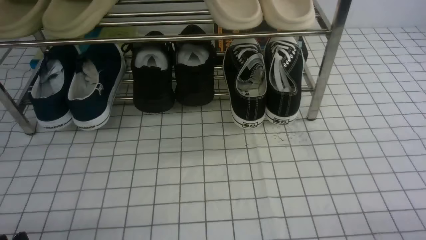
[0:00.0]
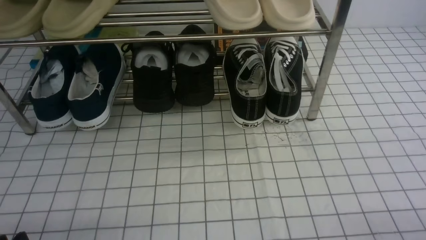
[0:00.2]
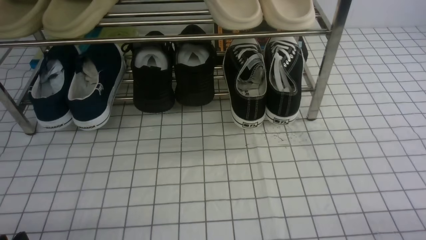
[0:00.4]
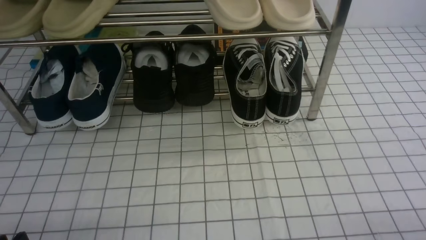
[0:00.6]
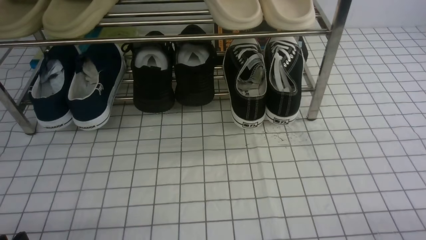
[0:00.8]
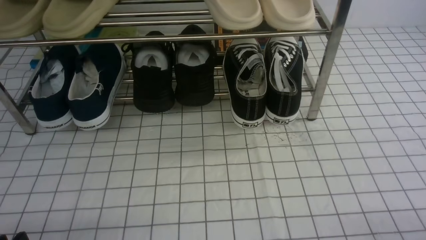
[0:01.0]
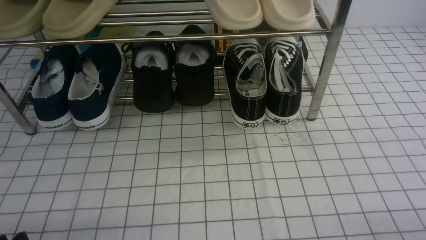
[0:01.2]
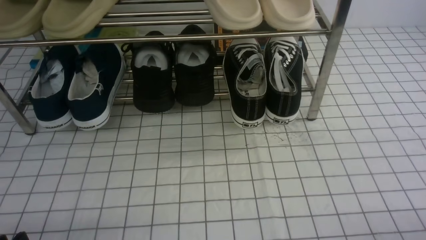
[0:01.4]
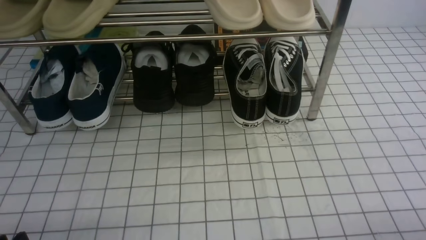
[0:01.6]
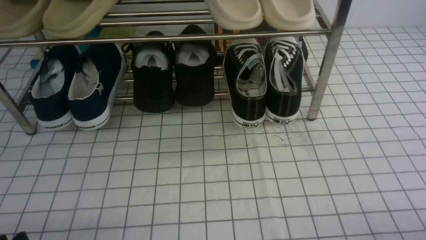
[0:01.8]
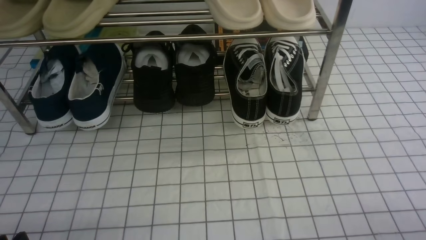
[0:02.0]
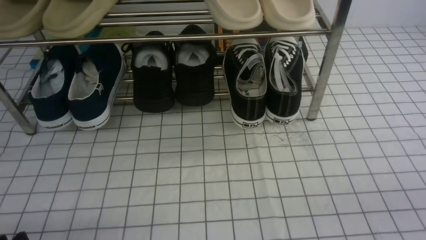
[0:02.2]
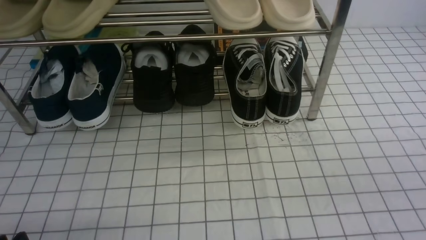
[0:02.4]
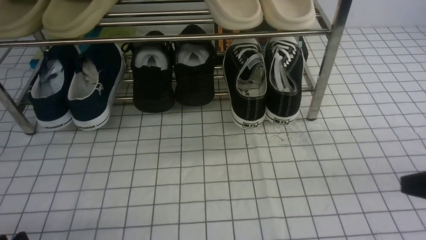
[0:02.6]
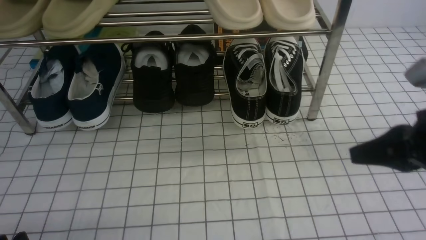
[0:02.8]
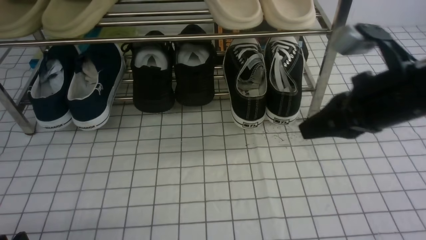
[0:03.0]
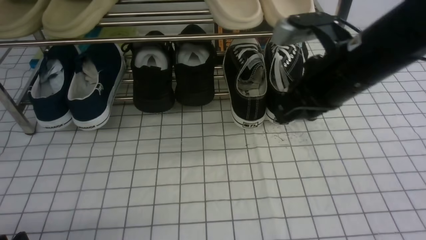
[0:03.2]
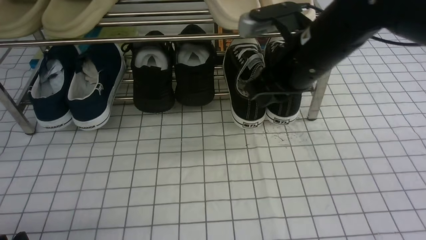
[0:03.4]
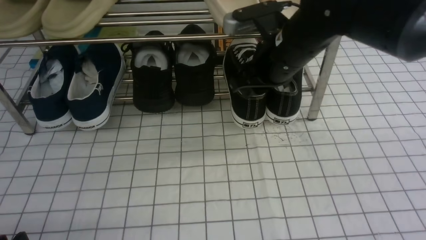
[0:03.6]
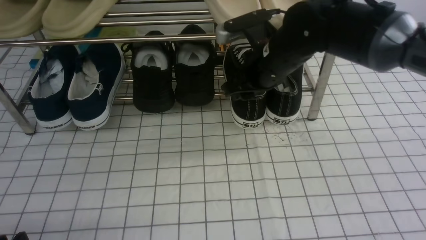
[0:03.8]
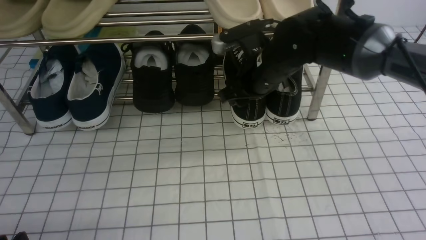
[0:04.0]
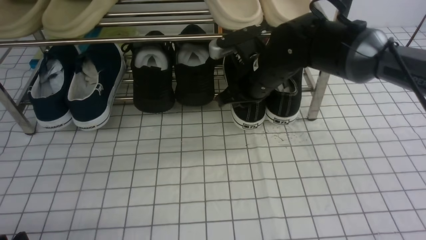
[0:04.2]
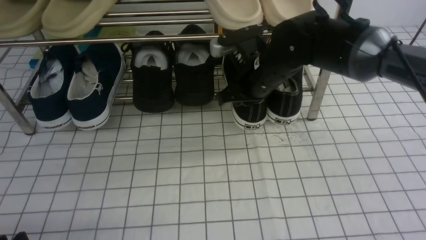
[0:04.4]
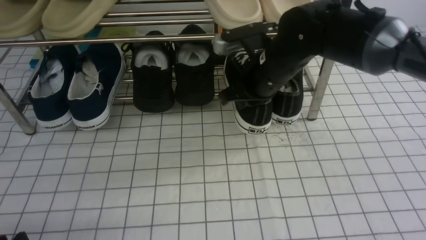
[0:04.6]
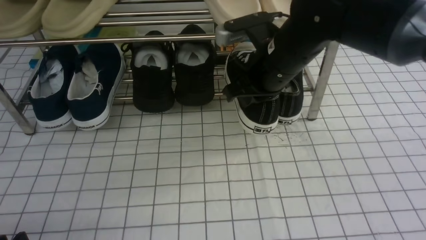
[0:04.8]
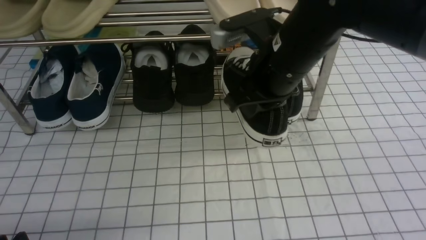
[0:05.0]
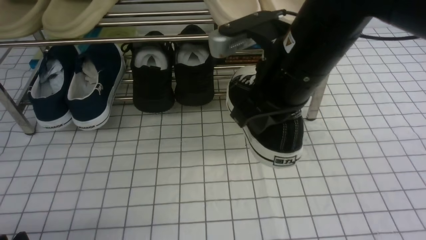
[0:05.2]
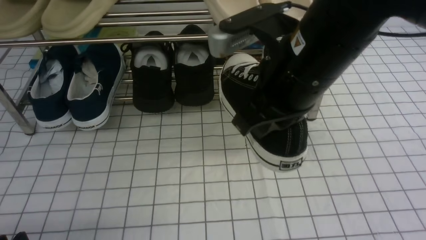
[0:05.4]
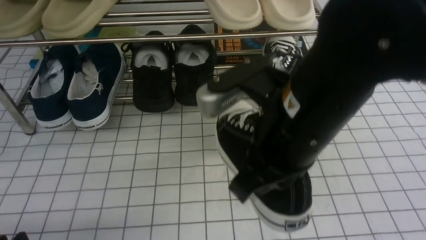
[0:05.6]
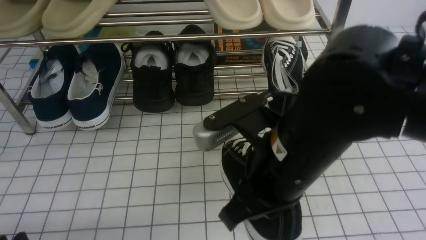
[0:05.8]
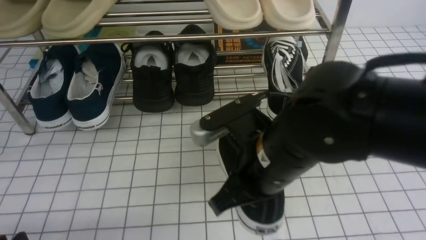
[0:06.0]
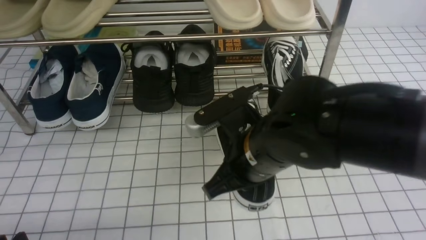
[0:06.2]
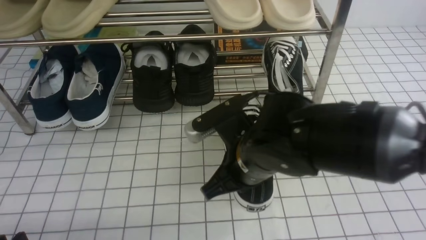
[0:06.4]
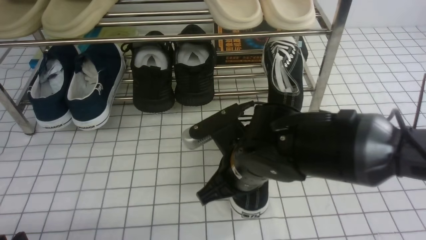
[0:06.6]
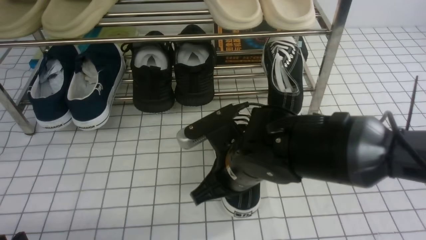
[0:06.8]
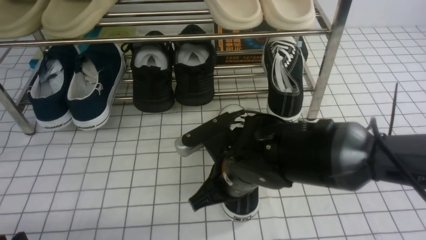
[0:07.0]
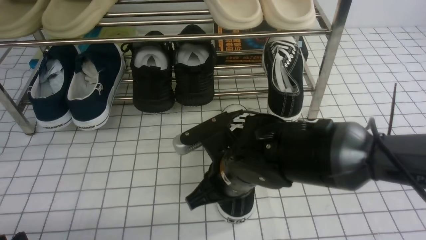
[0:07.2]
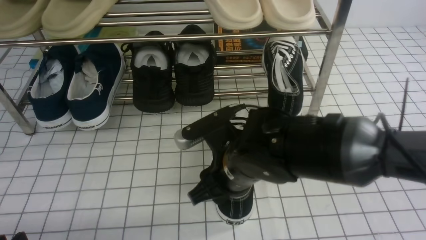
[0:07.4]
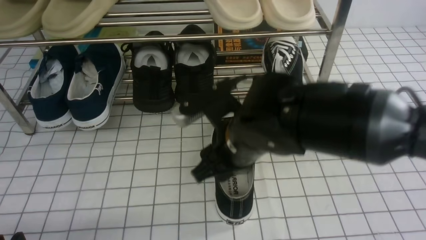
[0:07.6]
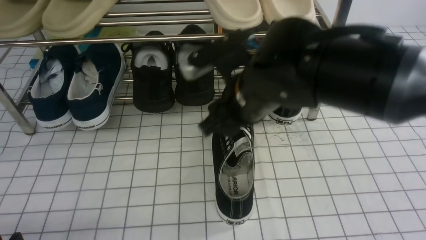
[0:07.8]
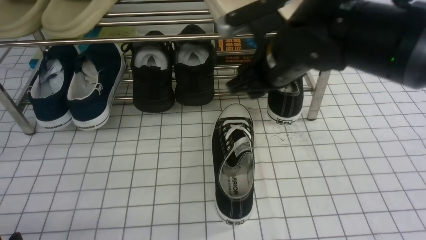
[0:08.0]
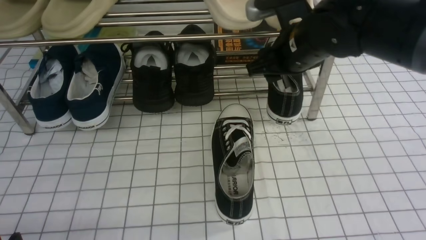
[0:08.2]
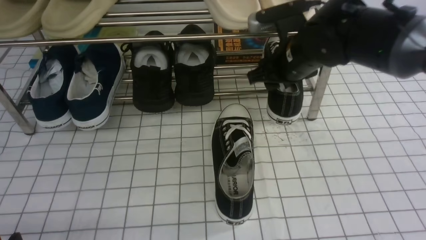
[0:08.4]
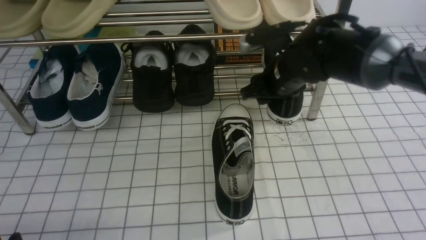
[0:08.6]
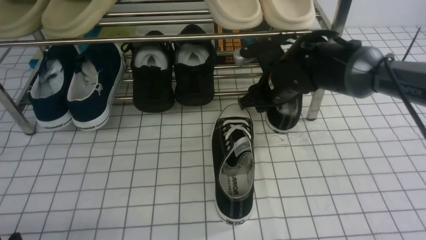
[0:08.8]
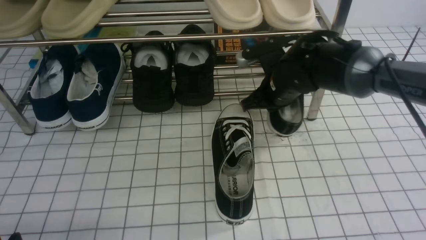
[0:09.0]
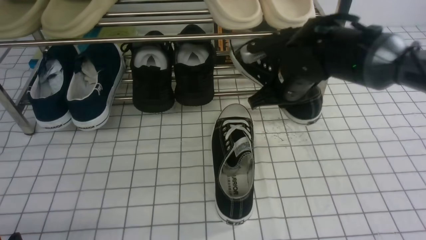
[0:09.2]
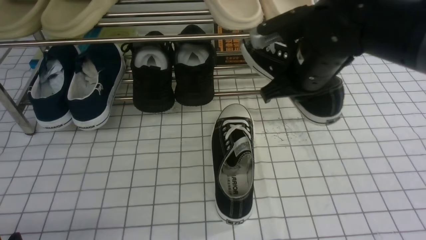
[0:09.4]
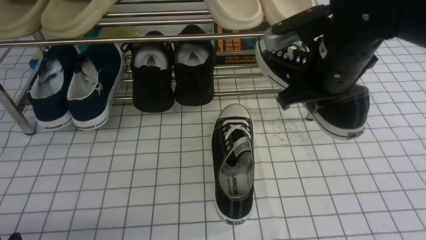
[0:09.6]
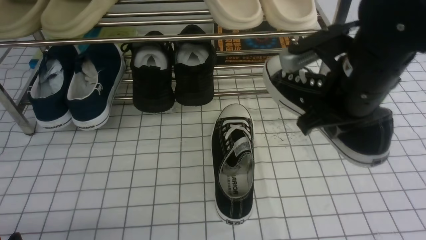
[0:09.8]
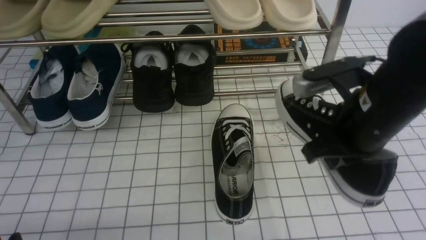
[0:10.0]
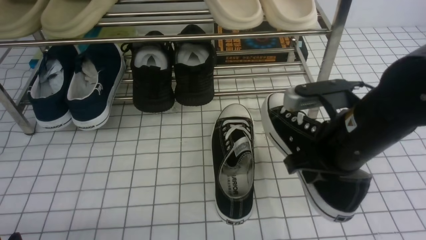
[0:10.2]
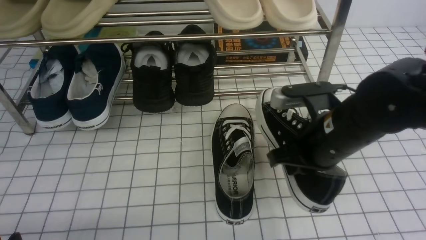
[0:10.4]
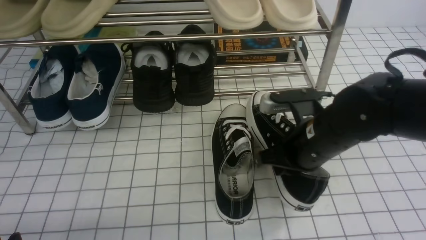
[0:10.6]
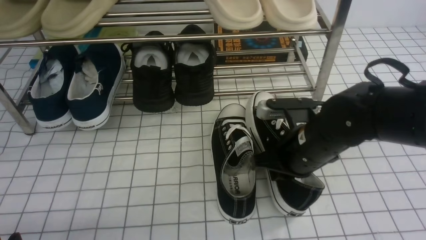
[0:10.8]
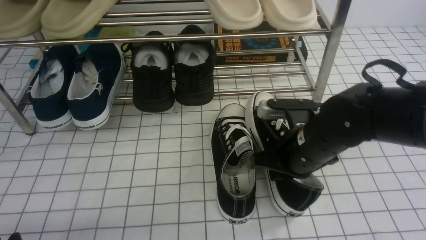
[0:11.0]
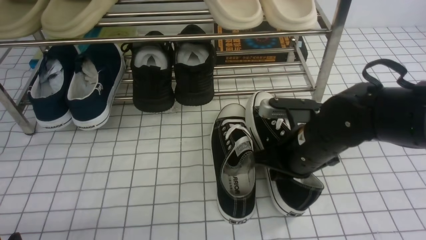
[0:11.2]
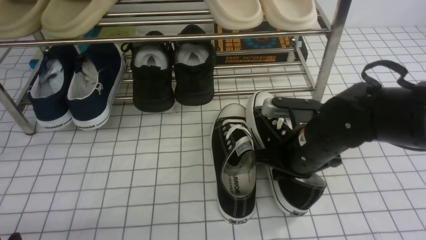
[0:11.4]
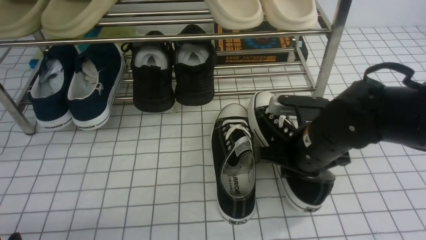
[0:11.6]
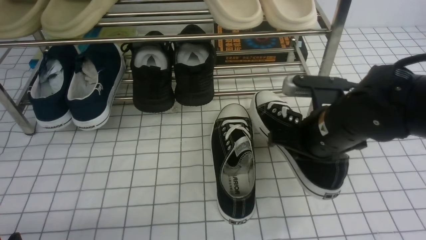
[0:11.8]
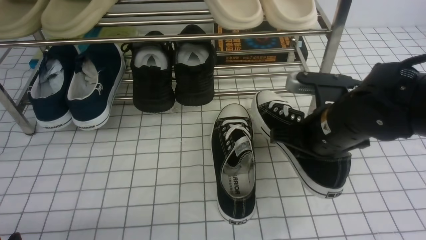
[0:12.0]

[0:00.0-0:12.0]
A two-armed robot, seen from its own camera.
Step, 0:00.0 to 0:04.0: use the right arm to clamp a shoe on the right side of the shoe rack.
Step, 0:04.2 to 0:07.6: use the right arm to take out the clamped shoe from the shoe rack and put it down.
Step, 0:07.8 to 0:08.8: use the right arm to clamp a shoe on the right side of the shoe rack.
0:01.6 to 0:03.0: The right gripper heads forward, upward and to the left, covering approximately 30 cm, and closes its fingers.
0:03.0 to 0:04.4: The right gripper goes some 20 cm forward, to the left and downward, and opens, then closes again.
0:04.4 to 0:06.0: The right gripper is displaced backward by about 20 cm.
0:06.0 to 0:07.6: The right gripper goes approximately 5 cm forward, moves about 10 cm downward and comes back, and opens its fingers.
0:07.6 to 0:09.0: The right gripper shifts some 15 cm forward and to the right, and closes its fingers.
0:09.0 to 0:10.4: The right gripper heads backward, covering approximately 15 cm.
0:10.4 to 0:12.0: The grippers move only a little.

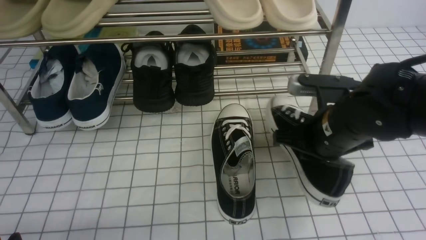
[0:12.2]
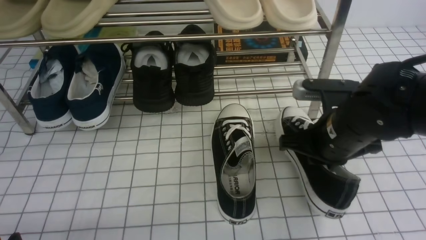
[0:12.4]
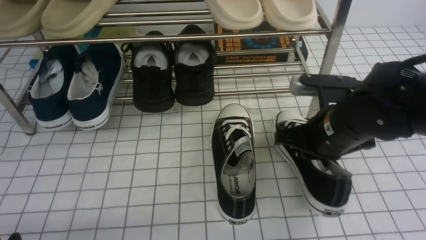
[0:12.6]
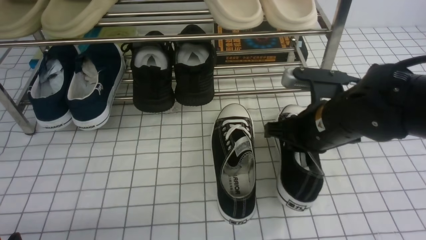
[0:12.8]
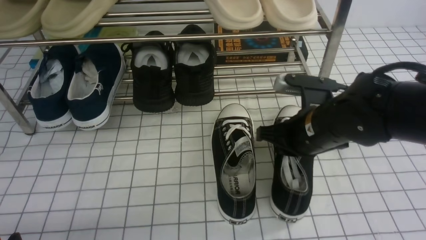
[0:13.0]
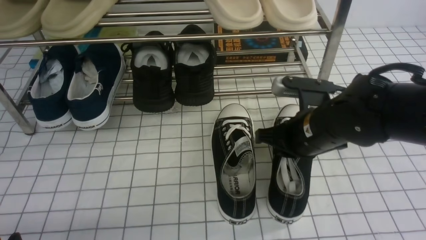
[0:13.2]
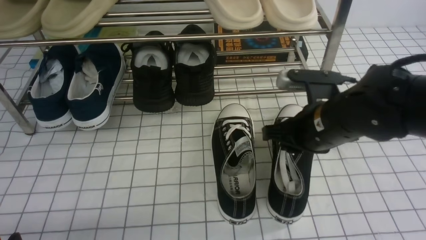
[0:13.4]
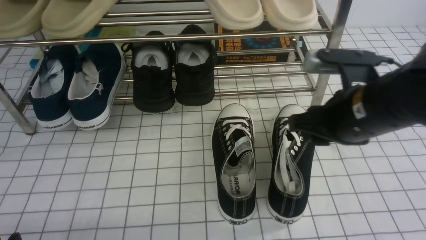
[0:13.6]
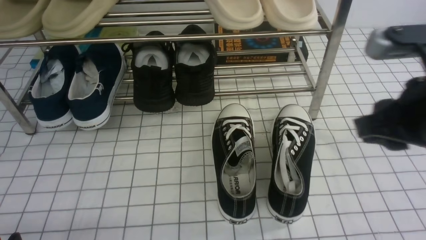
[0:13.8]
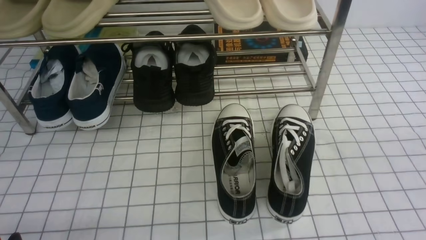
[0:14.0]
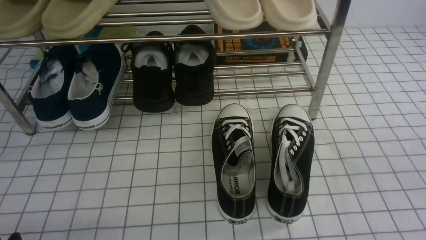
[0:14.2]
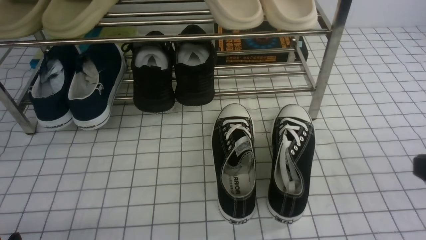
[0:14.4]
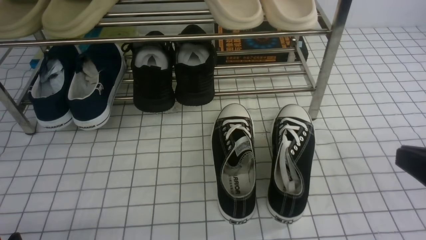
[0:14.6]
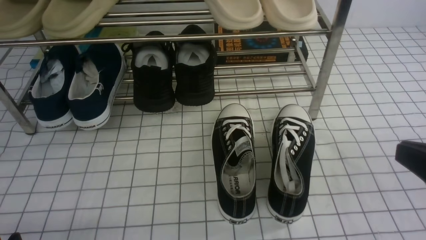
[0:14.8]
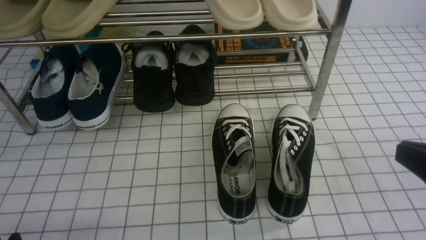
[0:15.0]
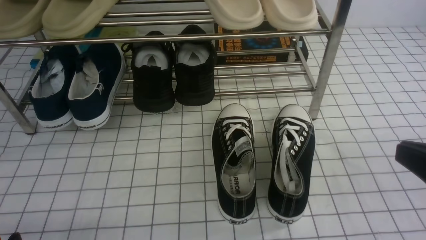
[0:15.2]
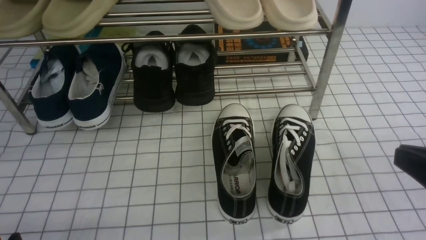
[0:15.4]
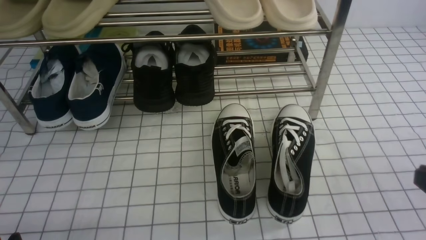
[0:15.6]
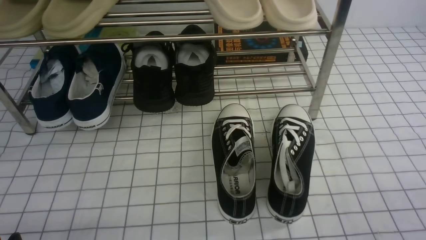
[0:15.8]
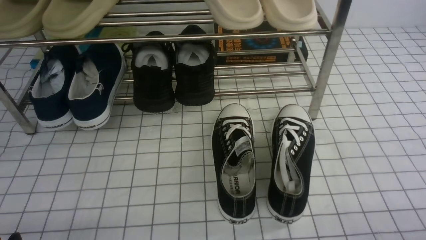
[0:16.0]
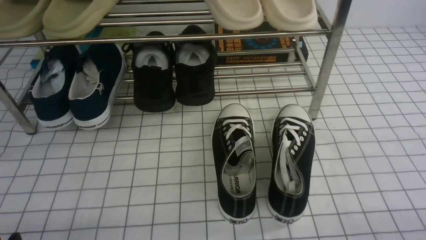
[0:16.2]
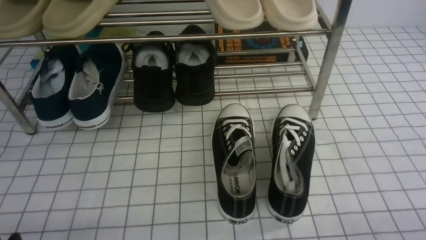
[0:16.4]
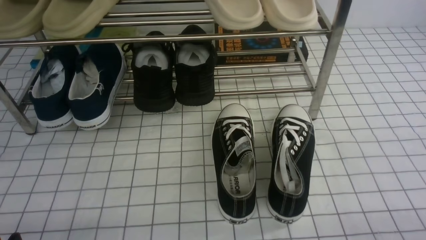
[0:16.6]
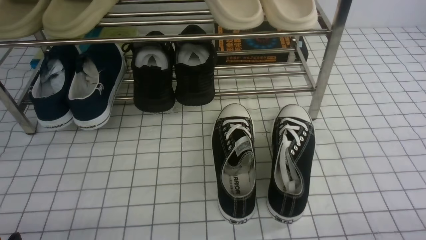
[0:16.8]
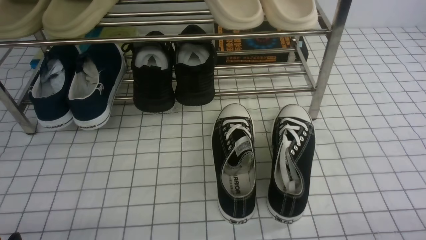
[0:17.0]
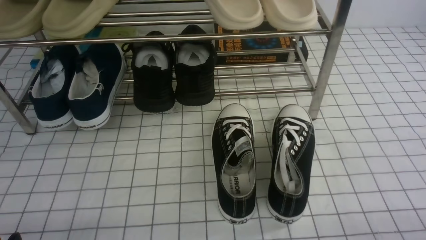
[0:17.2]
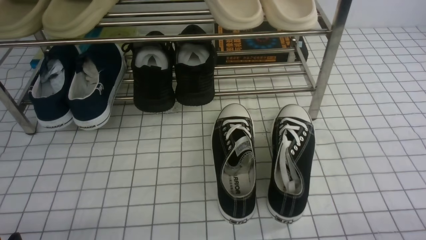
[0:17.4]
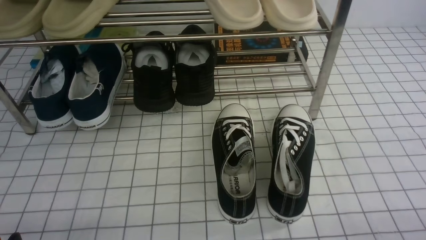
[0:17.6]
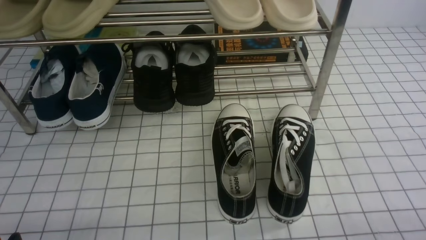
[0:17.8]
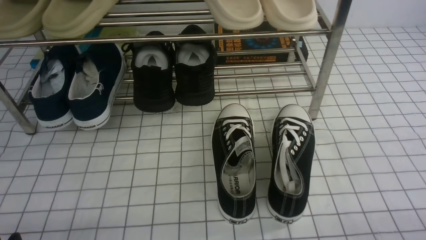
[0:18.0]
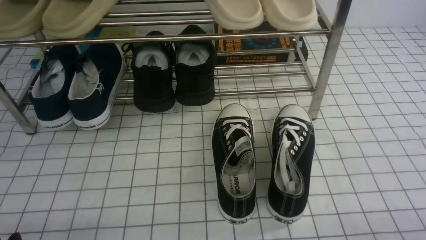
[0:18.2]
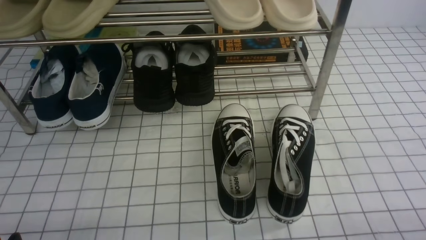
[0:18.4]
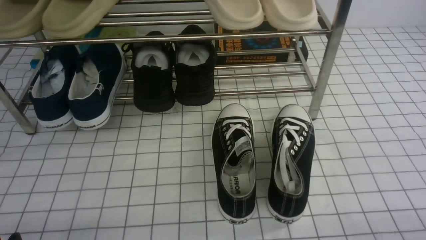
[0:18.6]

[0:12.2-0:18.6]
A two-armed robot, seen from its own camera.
0:12.2 to 0:13.8: The right gripper travels upward, backward and to the right by some 15 cm, and opens its fingers.
0:13.8 to 0:15.4: The right gripper is displaced backward, downward and to the right by approximately 10 cm, and closes up.
0:15.4 to 0:17.0: The right gripper shifts about 15 cm downward.
0:17.0 to 0:18.6: Both grippers stay about where they are.
